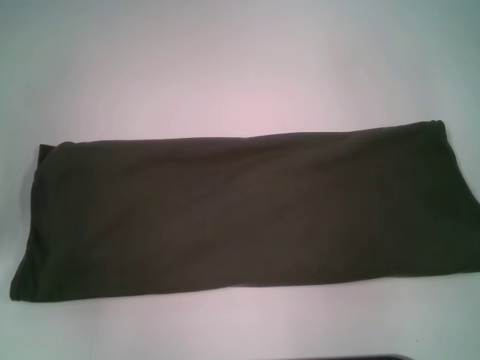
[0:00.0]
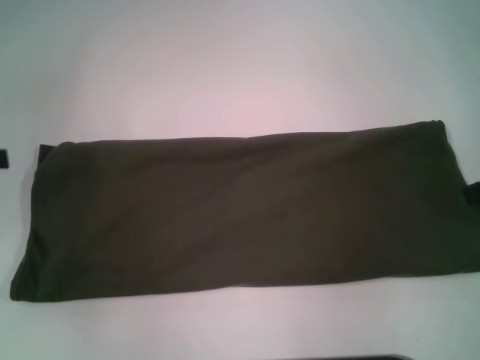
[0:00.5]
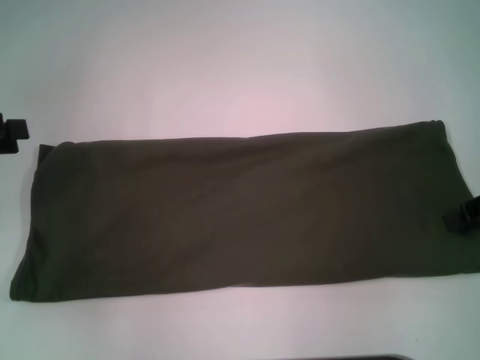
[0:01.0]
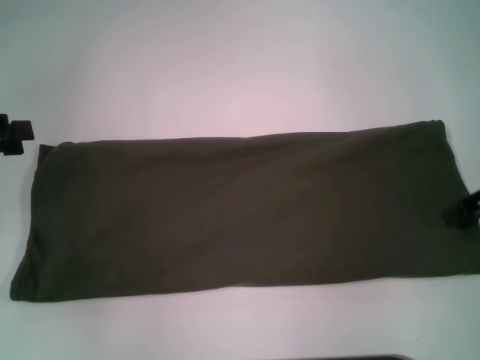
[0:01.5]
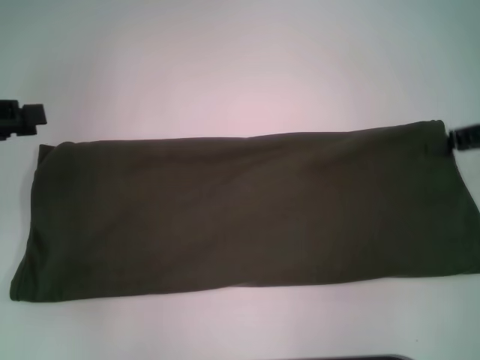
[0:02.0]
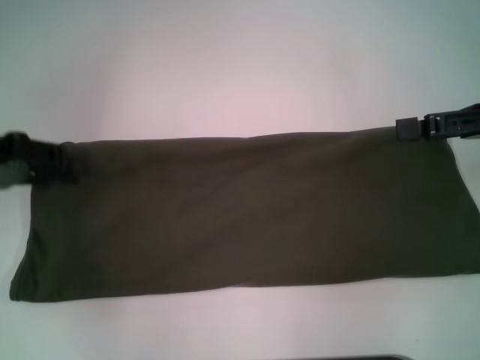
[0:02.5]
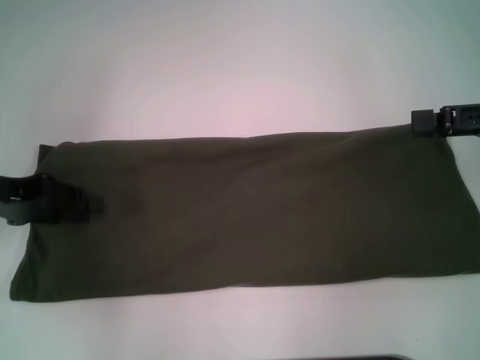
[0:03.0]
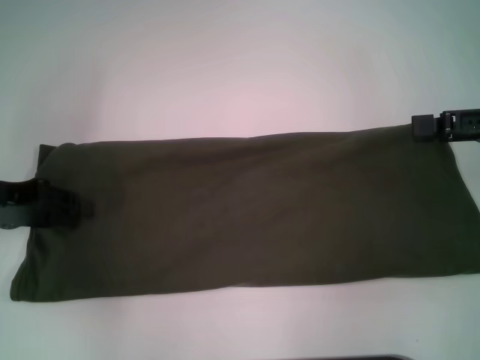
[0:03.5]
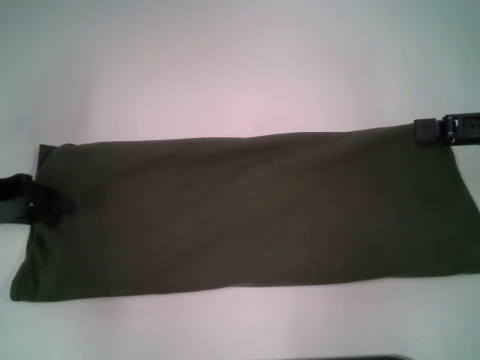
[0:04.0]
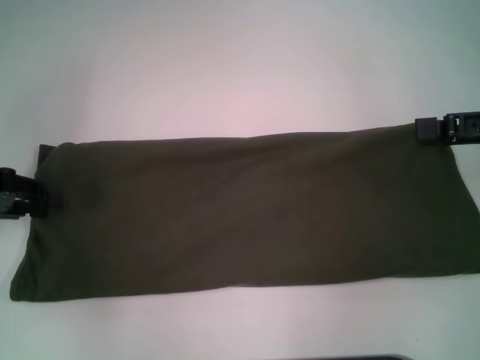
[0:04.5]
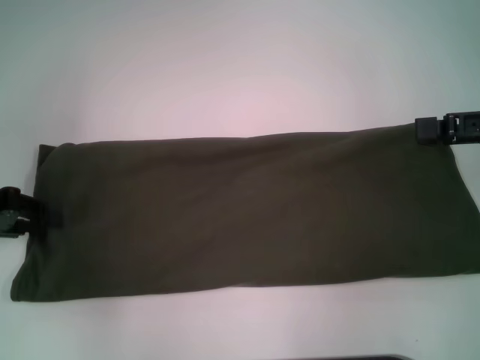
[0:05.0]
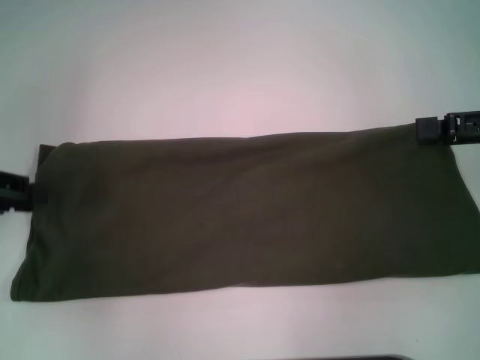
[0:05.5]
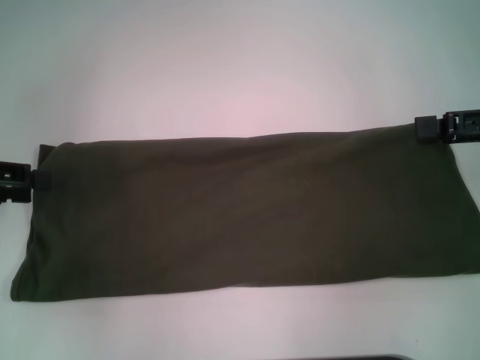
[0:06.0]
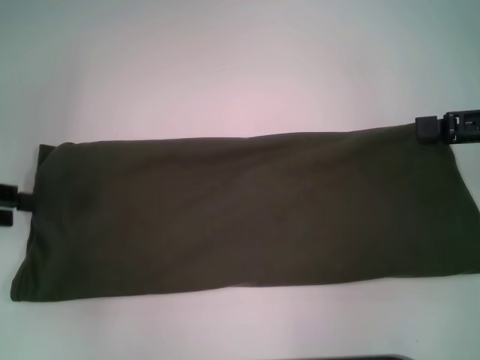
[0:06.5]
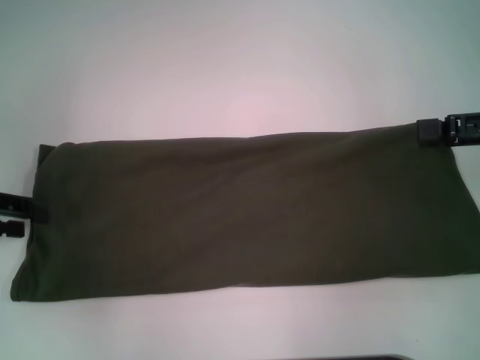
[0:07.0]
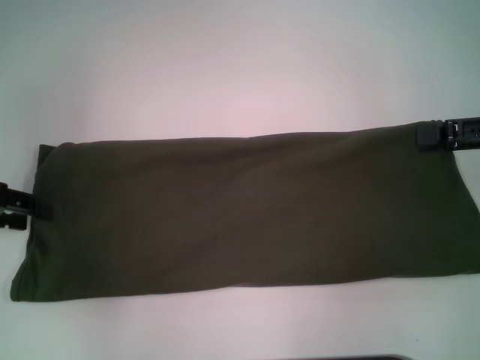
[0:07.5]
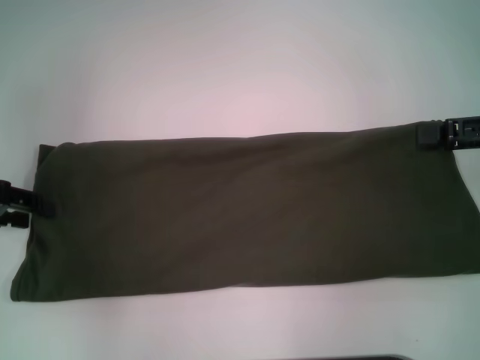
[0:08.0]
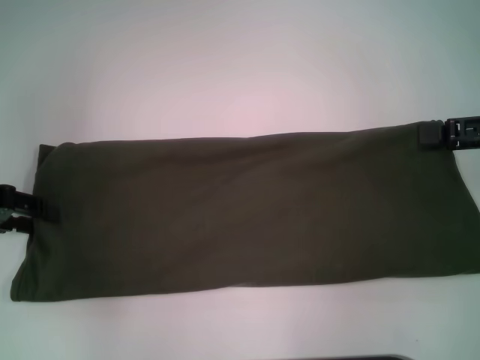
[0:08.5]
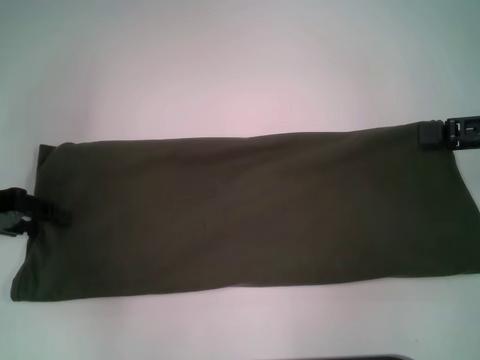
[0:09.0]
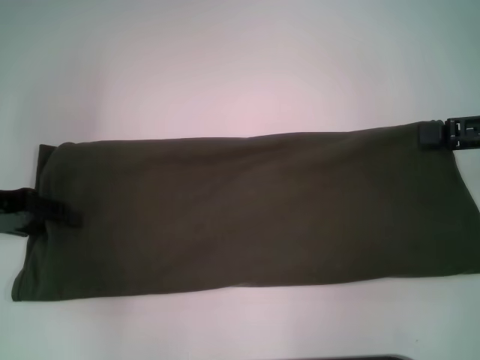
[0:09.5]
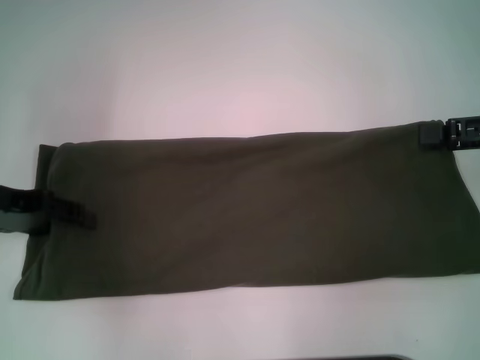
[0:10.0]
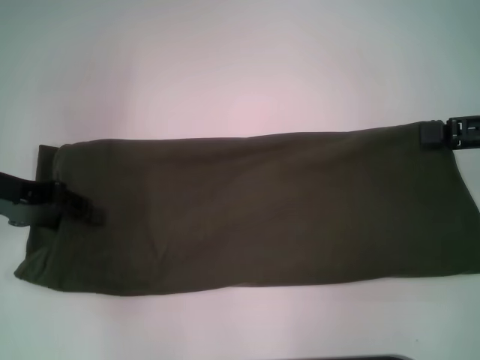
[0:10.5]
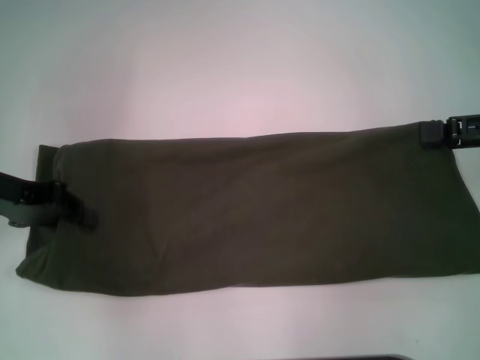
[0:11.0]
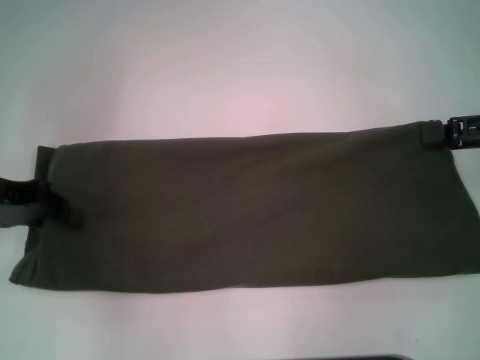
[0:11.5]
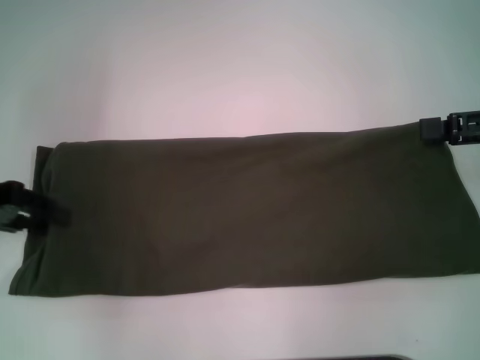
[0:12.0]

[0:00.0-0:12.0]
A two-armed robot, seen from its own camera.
0:02.0 to 0:04.0: The left gripper travels downward by about 5 cm.
0:04.0 to 0:10.0: There are only small adjustments of the grippers.
0:10.0 to 0:12.0: The left gripper closes.

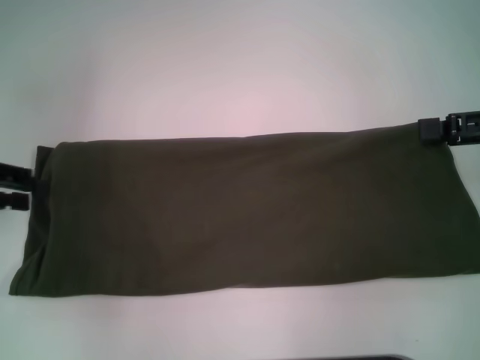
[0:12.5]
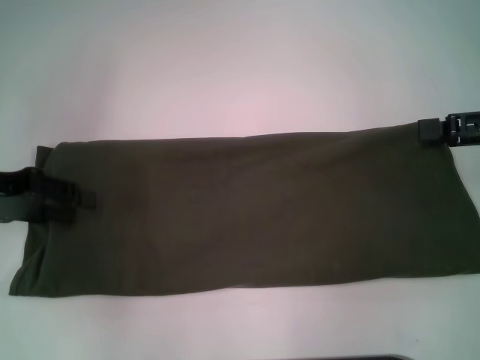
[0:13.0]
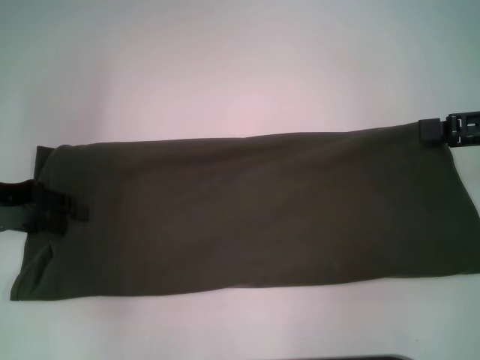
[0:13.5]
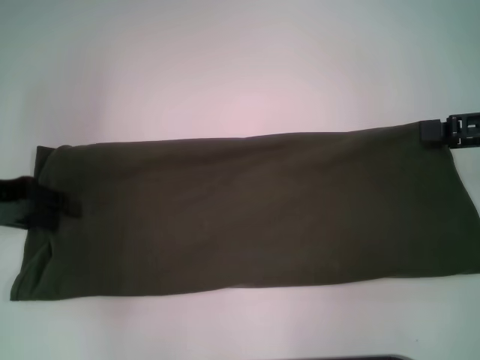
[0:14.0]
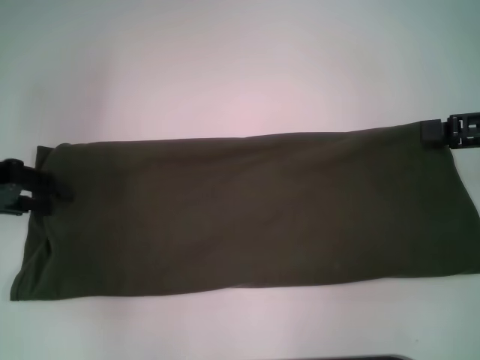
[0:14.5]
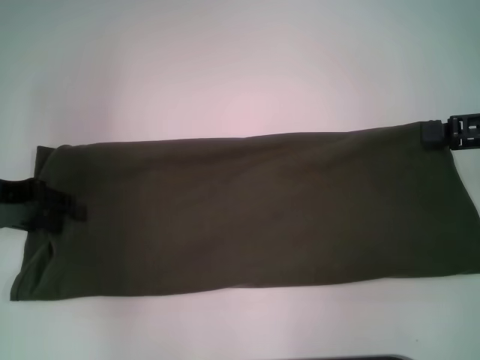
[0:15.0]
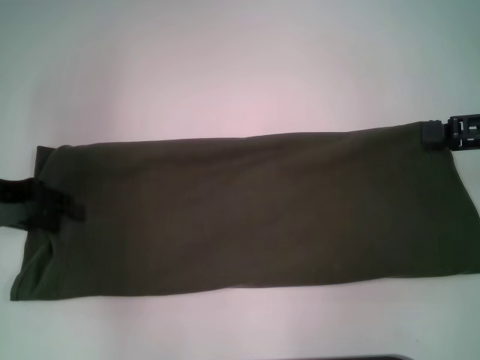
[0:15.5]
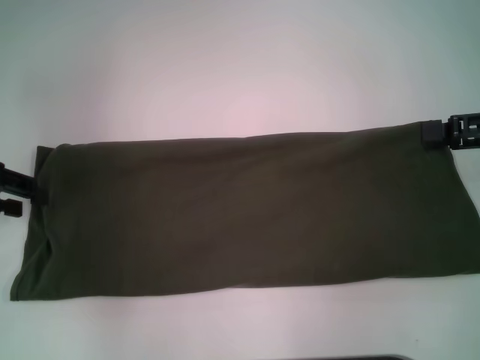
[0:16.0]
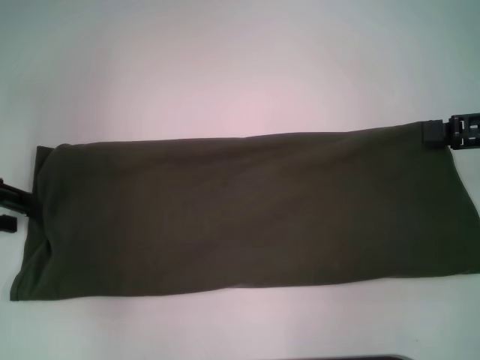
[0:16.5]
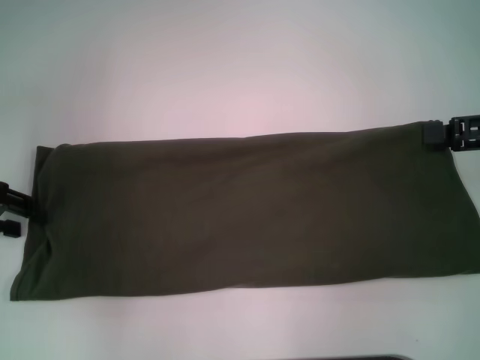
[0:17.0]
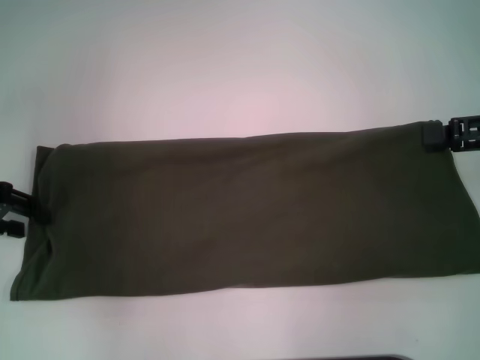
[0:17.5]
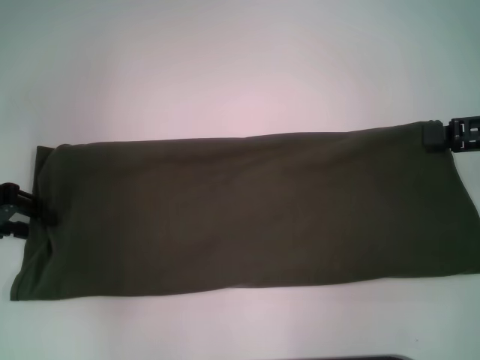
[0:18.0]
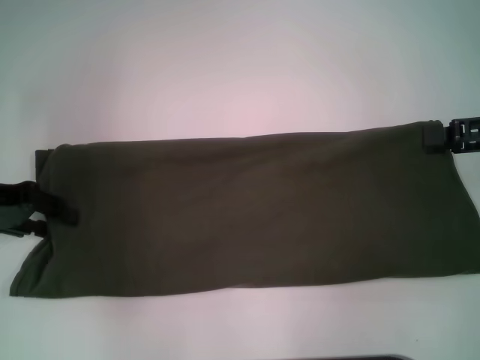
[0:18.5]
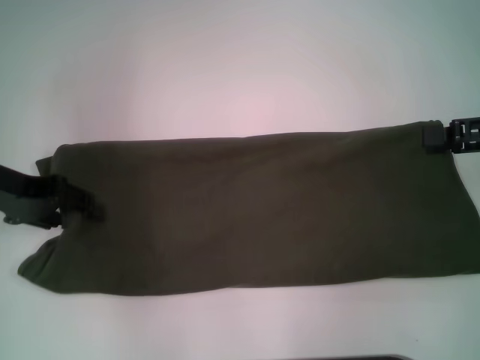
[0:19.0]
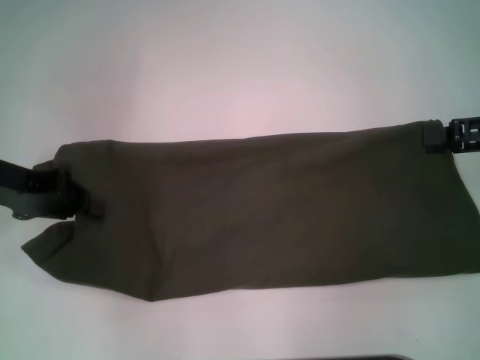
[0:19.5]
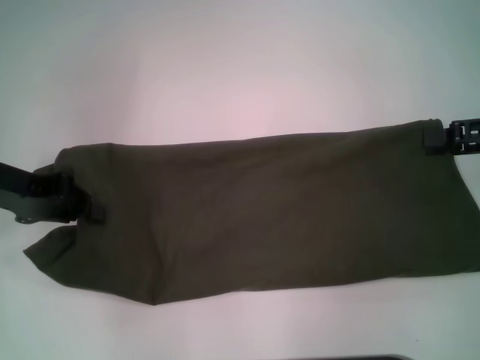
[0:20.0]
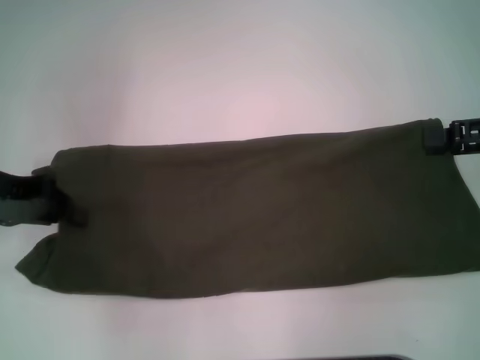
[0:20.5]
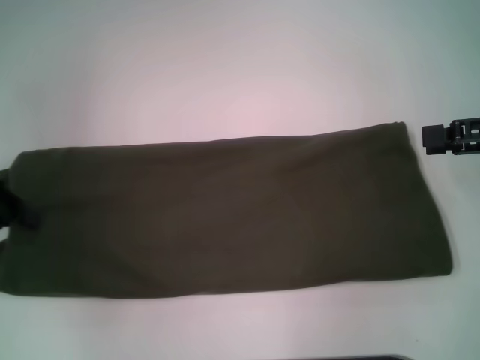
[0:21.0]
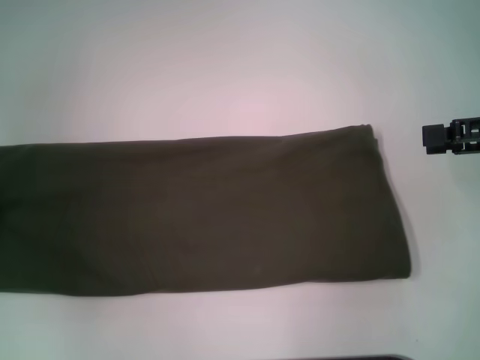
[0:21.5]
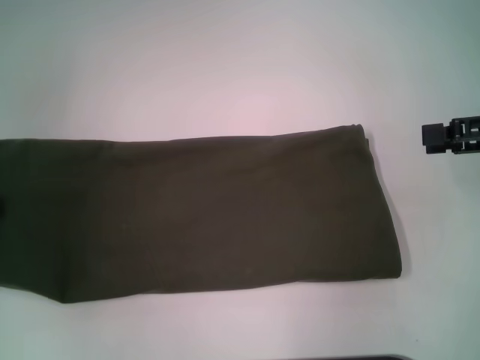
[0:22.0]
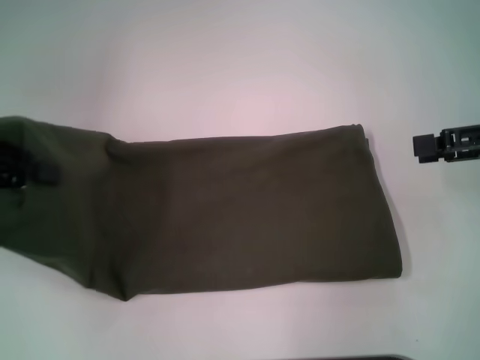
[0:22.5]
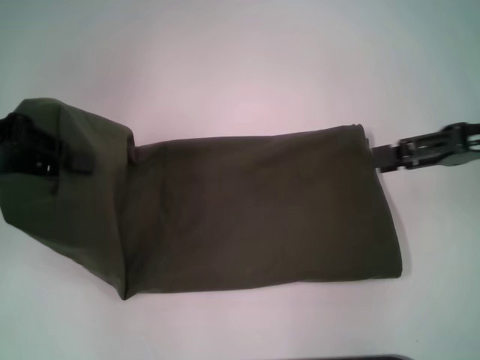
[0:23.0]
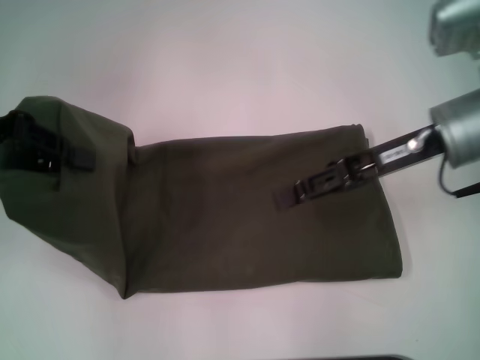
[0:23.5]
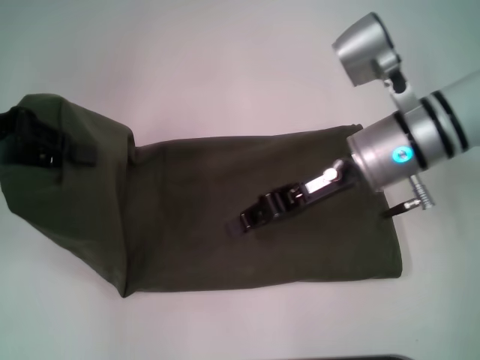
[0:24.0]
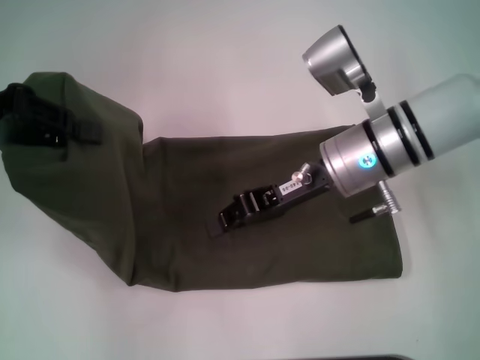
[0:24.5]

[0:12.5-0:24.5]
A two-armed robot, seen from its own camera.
0:12.5 to 0:18.5: The grippers stay close to where they were, moving slightly.
0:18.5 to 0:20.5: The left gripper closes its fingers.
0:20.5 to 0:22.5: The left gripper moves about 5 cm.
0:22.5 to 0:24.5: The right gripper goes roughly 20 cm to the left, and closes.

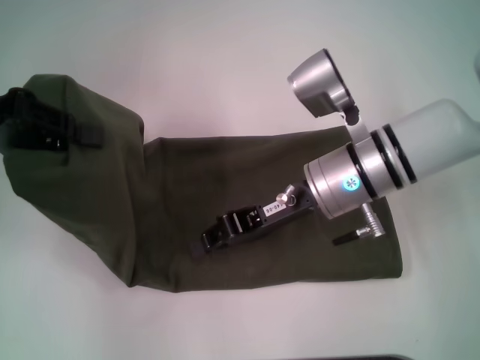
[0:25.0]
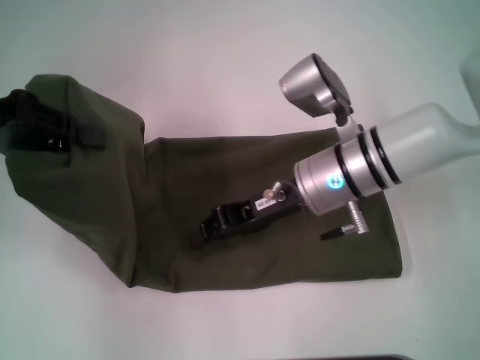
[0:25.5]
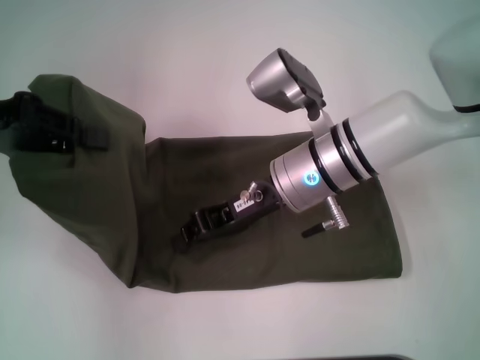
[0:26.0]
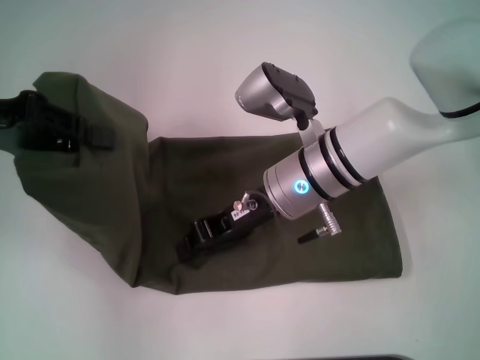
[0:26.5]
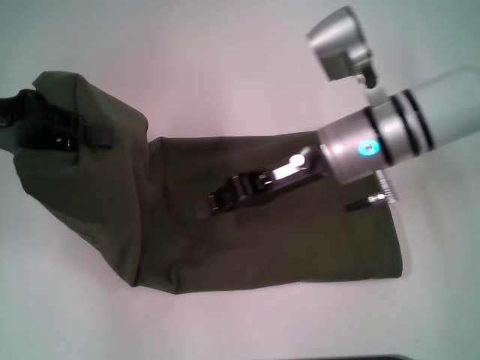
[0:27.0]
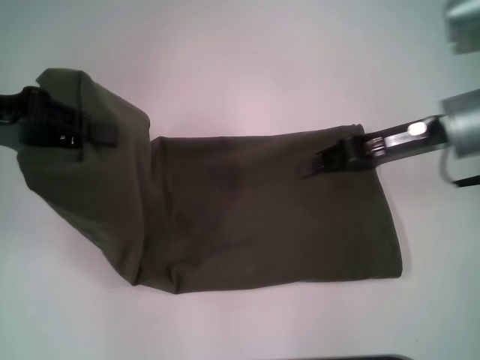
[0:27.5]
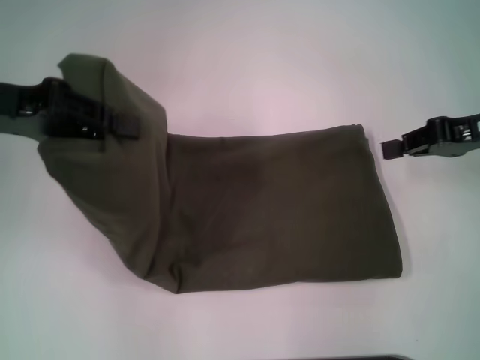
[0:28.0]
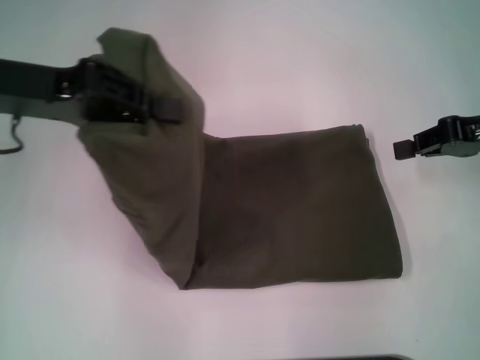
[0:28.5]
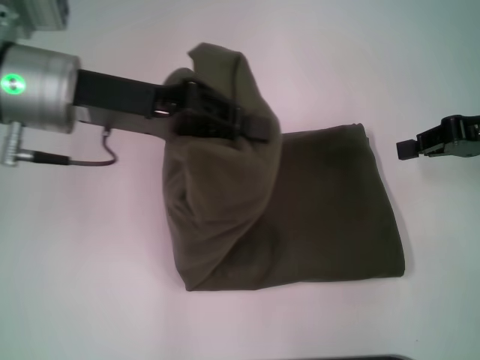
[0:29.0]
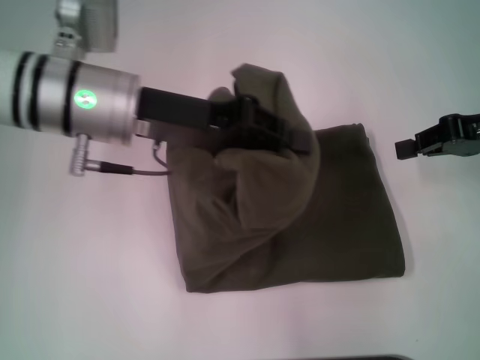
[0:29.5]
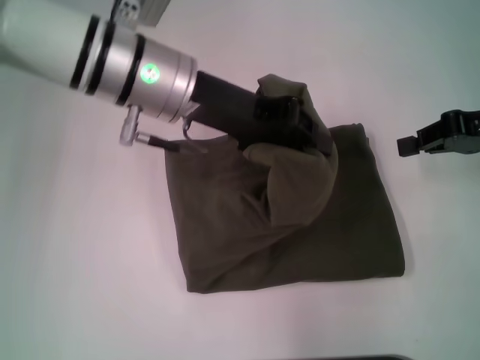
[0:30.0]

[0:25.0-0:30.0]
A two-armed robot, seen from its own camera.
0:25.0 to 0:27.5: The right gripper travels to the right by roughly 10 cm.
0:27.5 to 0:30.0: The right gripper is displaced to the right by some 10 cm, while the left gripper goes about 20 cm to the right.
